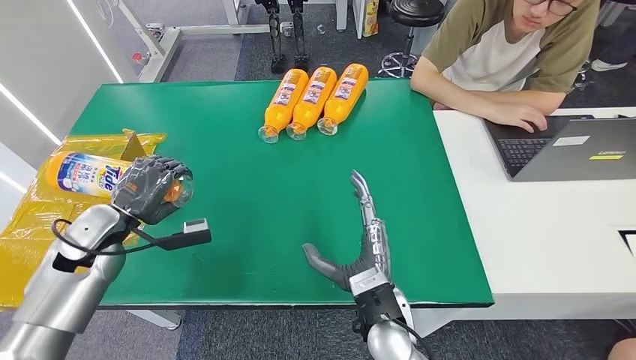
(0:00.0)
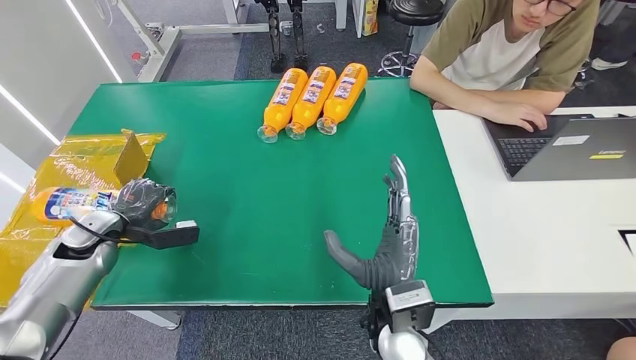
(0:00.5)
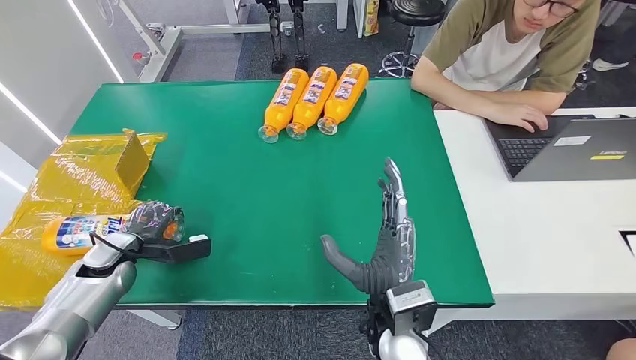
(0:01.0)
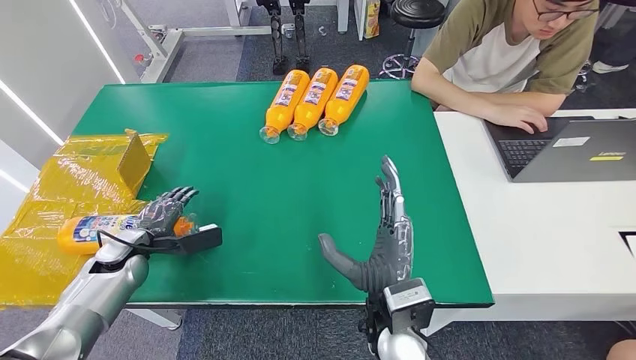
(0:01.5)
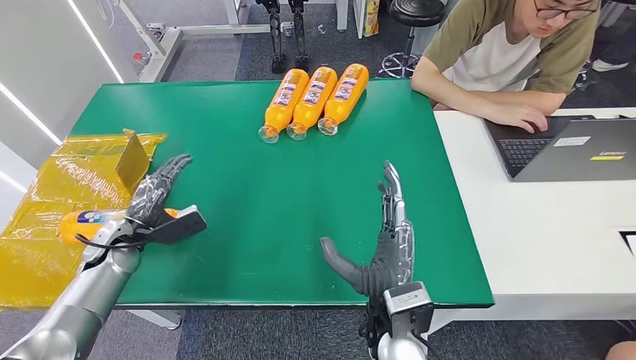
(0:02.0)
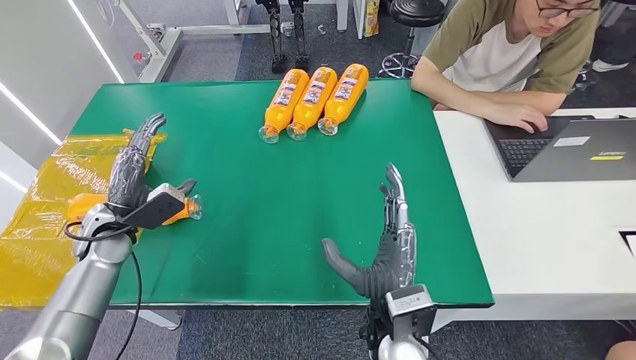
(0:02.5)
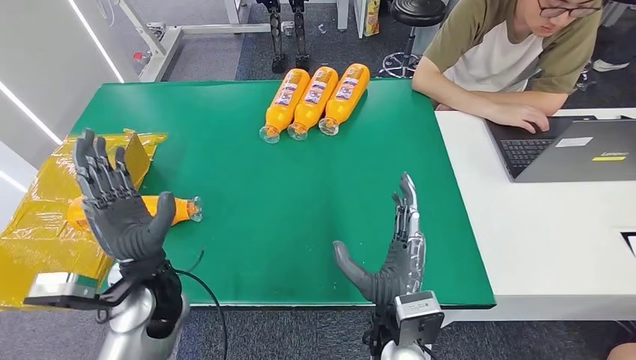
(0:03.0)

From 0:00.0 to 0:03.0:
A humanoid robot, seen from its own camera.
Step, from 0:00.0 to 0:03.0: Turn the bottle to the front side.
From 0:00.0 to 0:01.5: The left hand shifts approximately 10 cm downward.
From 0:01.5 to 0:03.0: The left hand travels to the right and upward by roughly 20 cm.

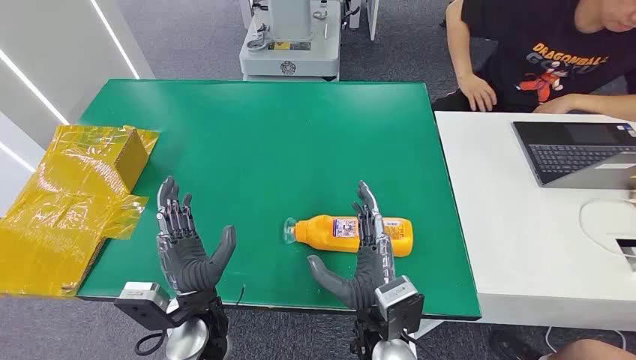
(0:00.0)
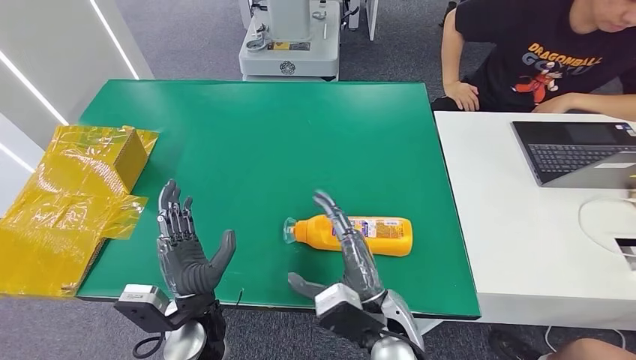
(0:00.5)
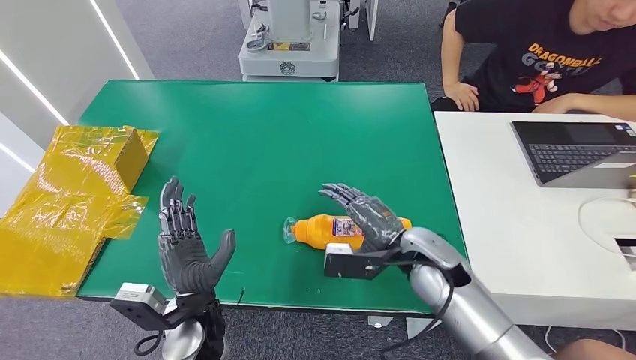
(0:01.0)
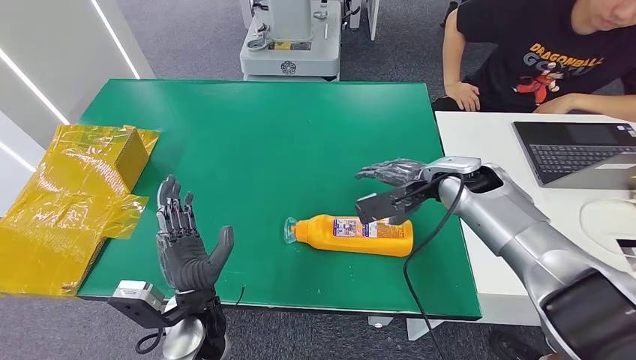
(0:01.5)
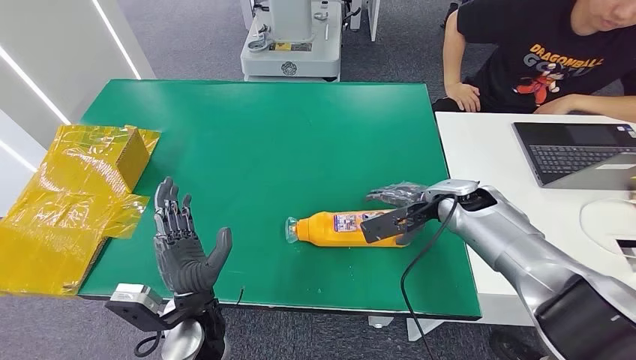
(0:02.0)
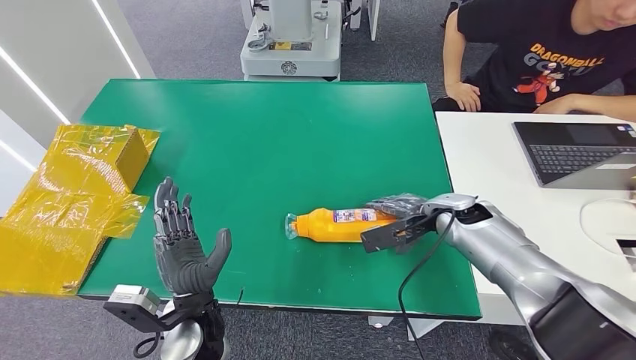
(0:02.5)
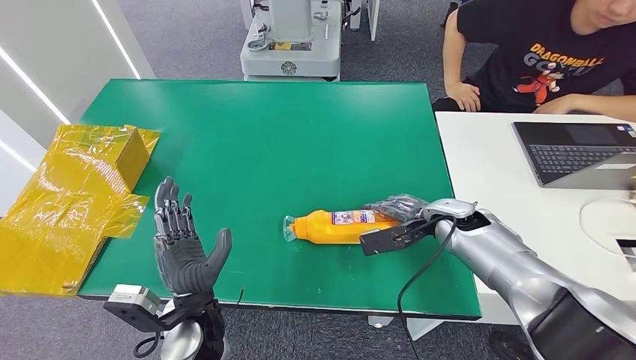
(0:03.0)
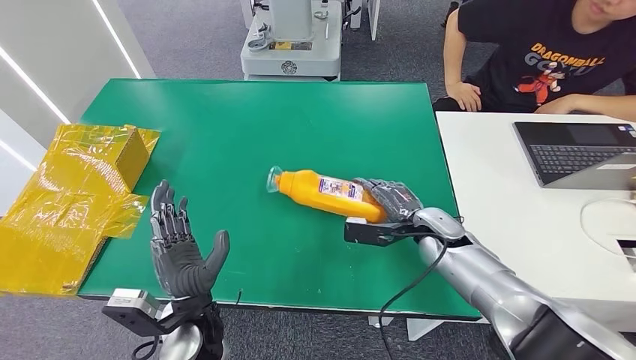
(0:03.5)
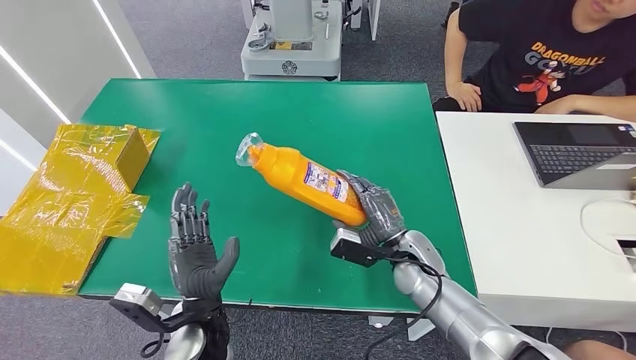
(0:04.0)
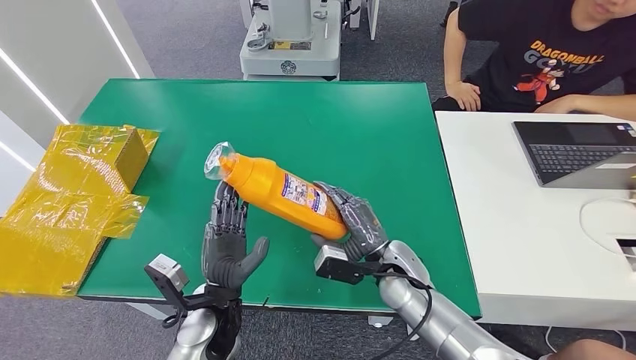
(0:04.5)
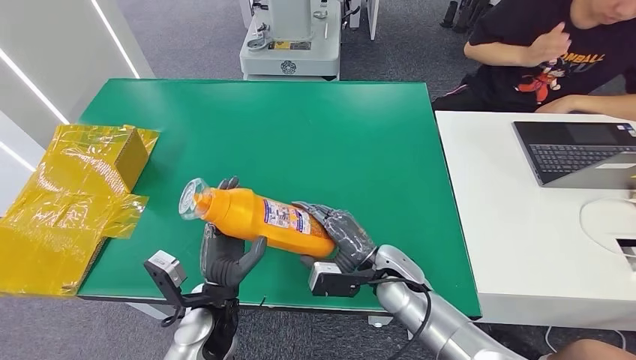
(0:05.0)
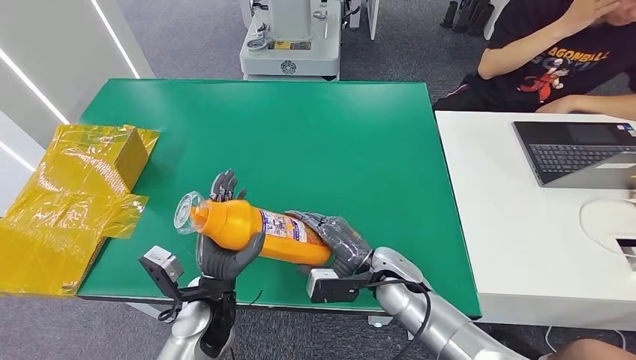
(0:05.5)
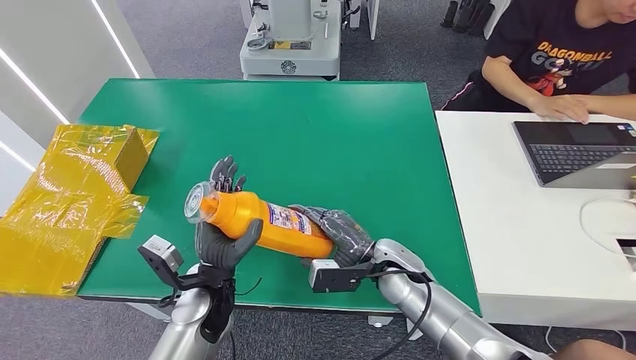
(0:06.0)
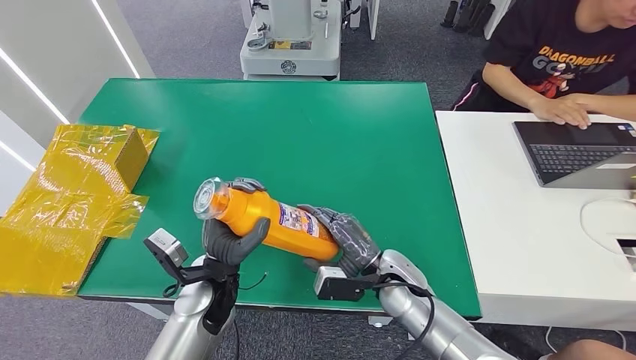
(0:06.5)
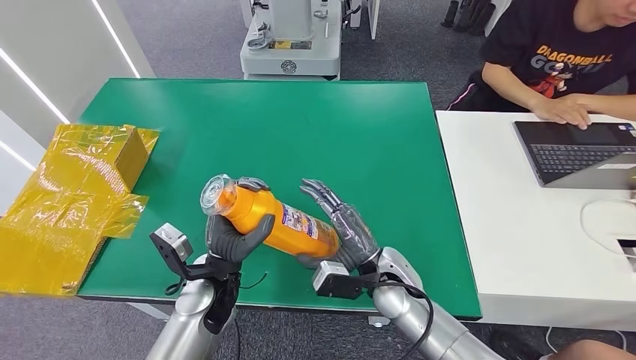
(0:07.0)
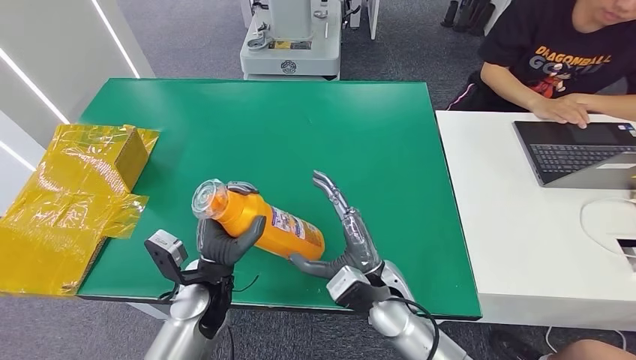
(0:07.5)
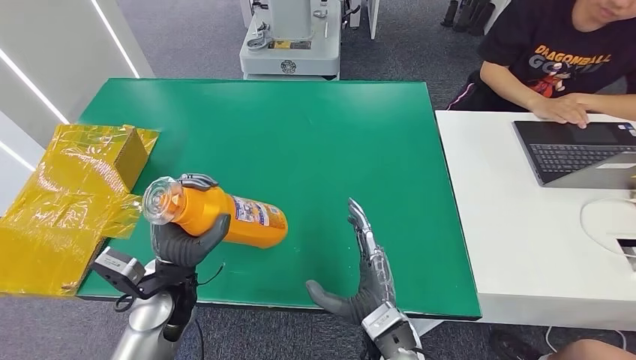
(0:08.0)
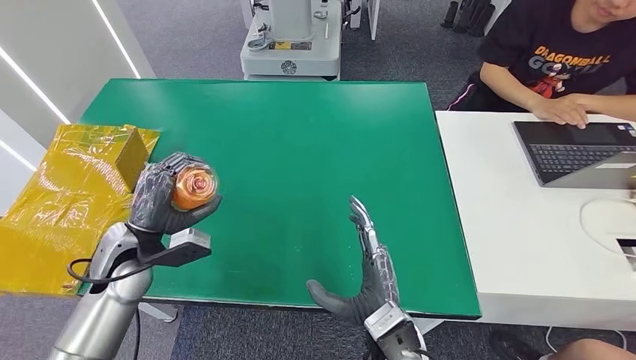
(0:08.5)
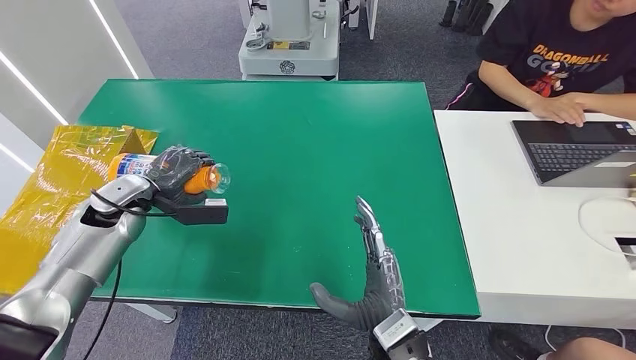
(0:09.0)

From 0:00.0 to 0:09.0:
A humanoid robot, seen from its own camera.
Step, from 0:00.0 to 0:03.5: Pick up the bottle from the table.

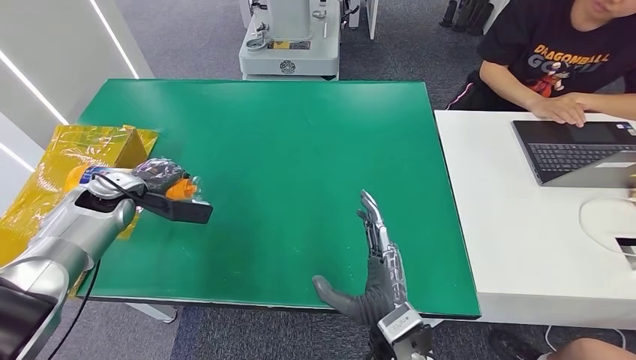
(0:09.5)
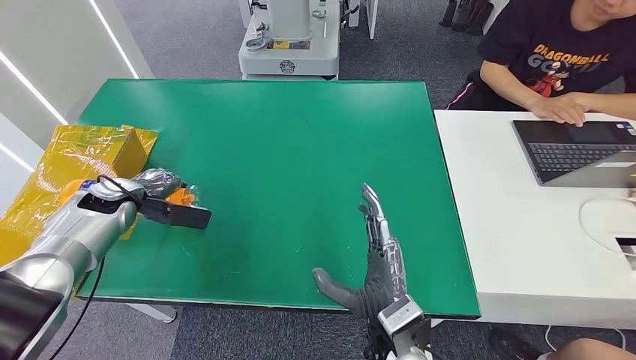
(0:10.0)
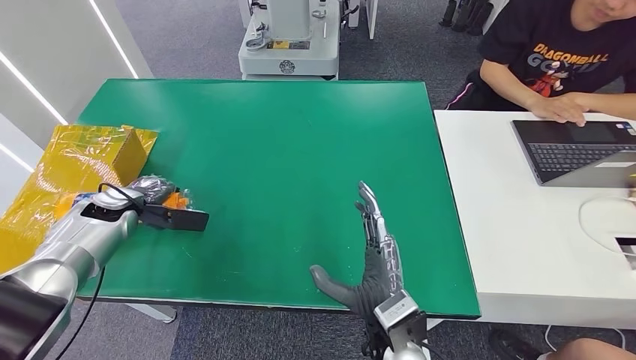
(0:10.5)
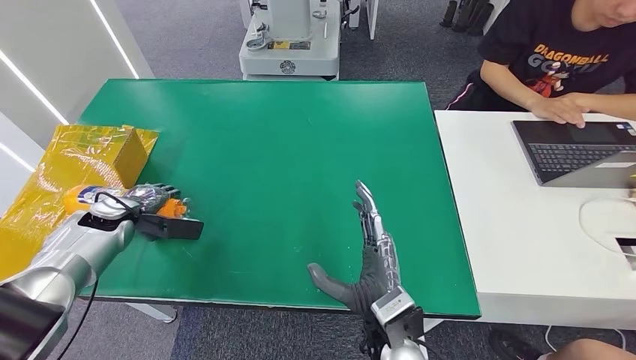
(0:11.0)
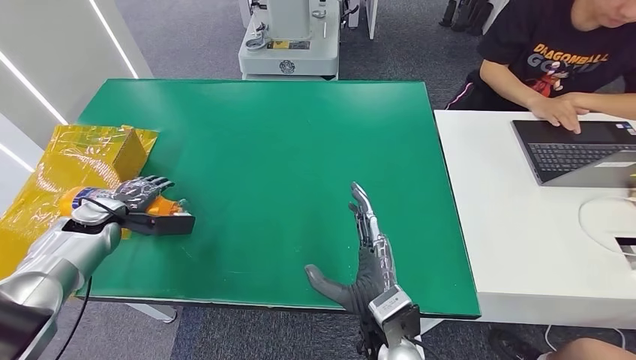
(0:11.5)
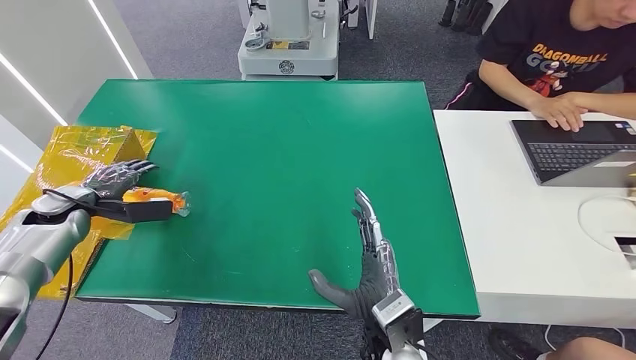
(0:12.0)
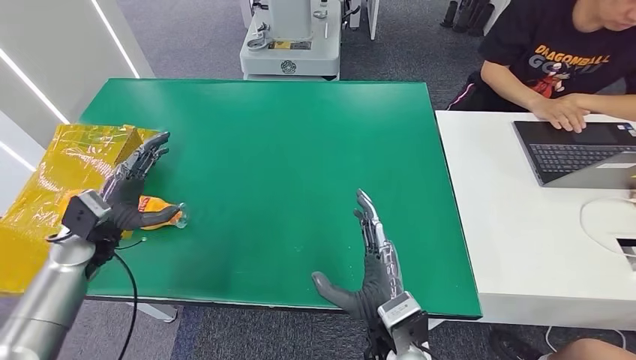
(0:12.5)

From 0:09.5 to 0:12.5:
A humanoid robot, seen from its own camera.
Step, from 0:09.5 to 0:12.5: Turn the bottle to the front side.
From 0:09.5 to 0:11.0: The left hand changes place by approximately 5 cm.
From 0:11.0 to 0:12.5: The left hand is displaced backward by roughly 5 cm, and travels to the left and back again, about 5 cm each way.

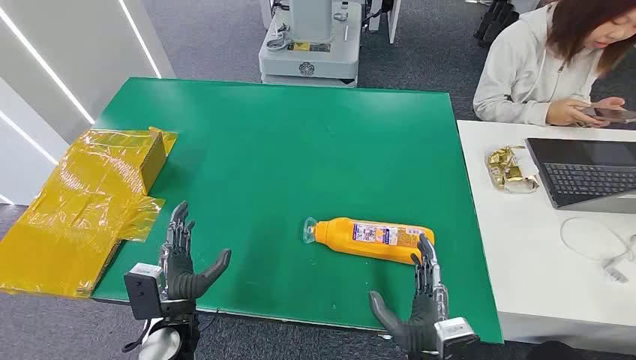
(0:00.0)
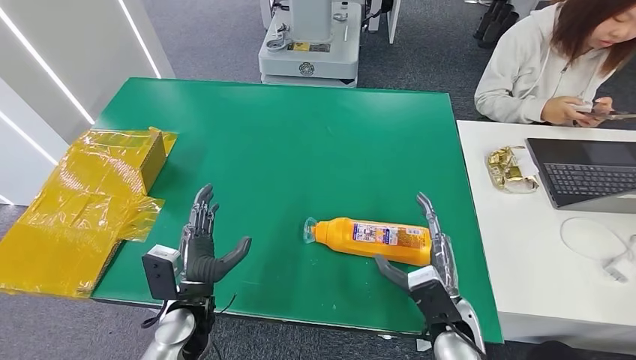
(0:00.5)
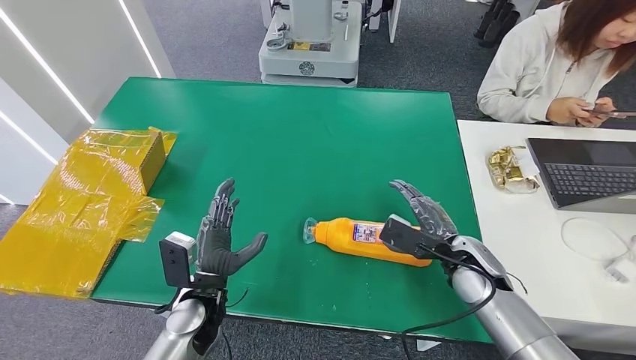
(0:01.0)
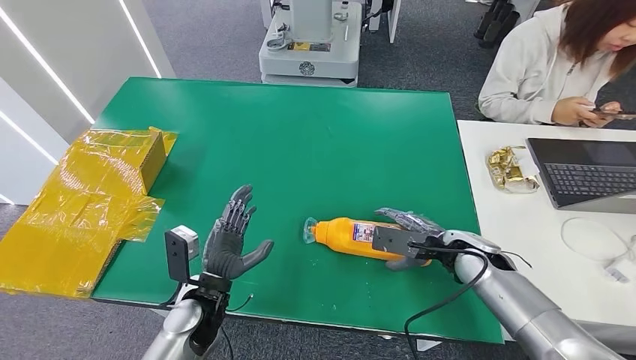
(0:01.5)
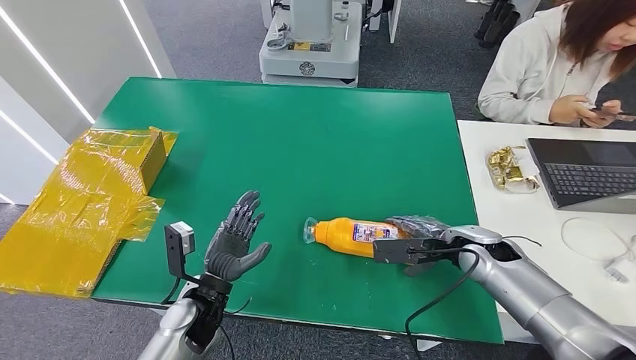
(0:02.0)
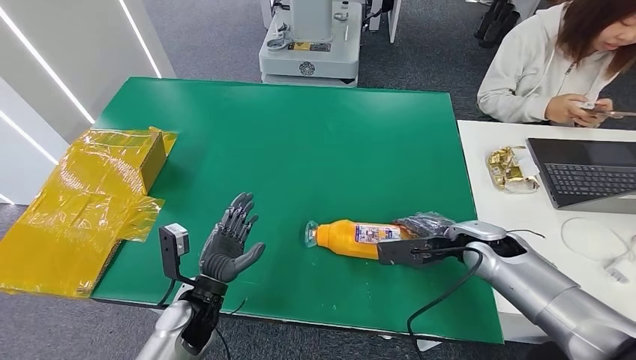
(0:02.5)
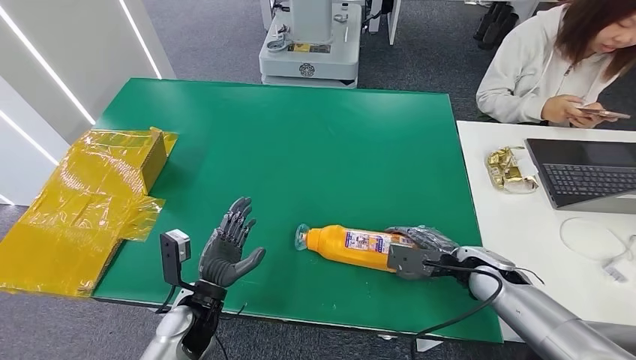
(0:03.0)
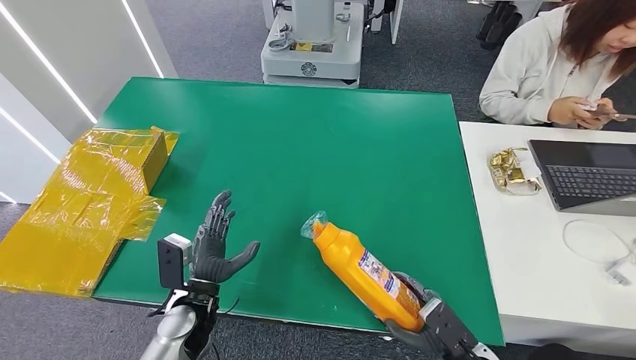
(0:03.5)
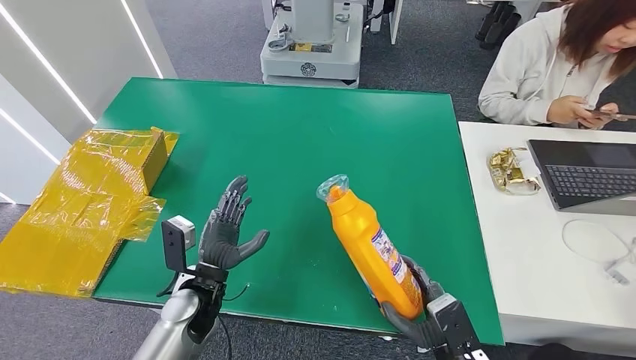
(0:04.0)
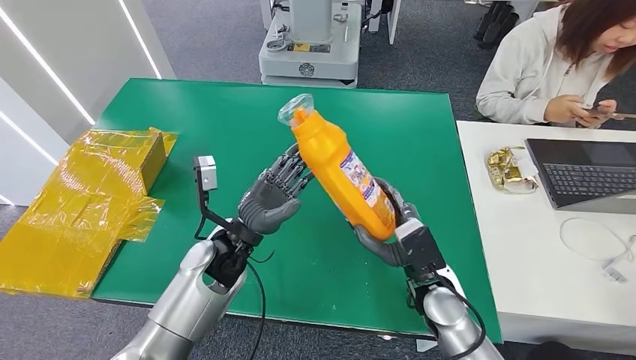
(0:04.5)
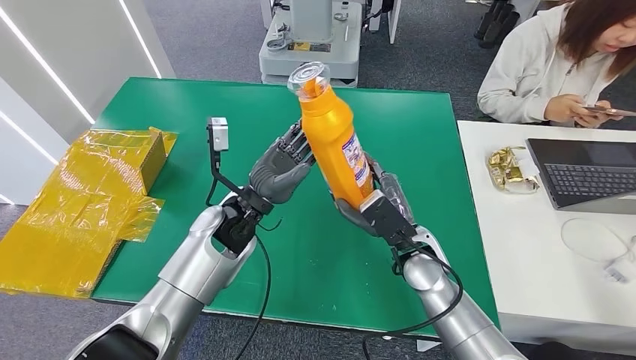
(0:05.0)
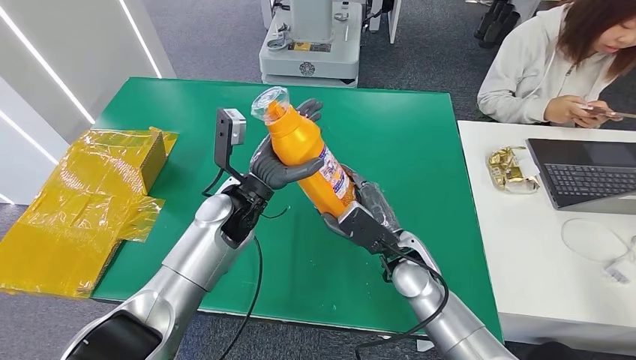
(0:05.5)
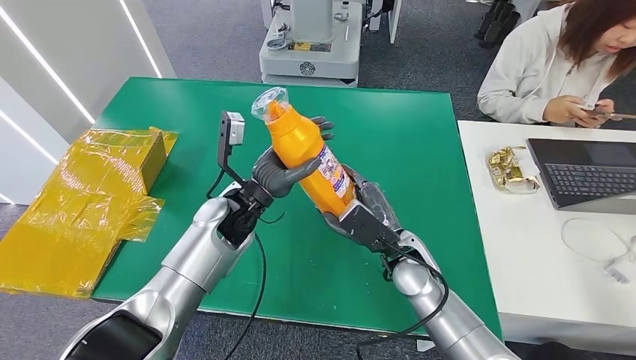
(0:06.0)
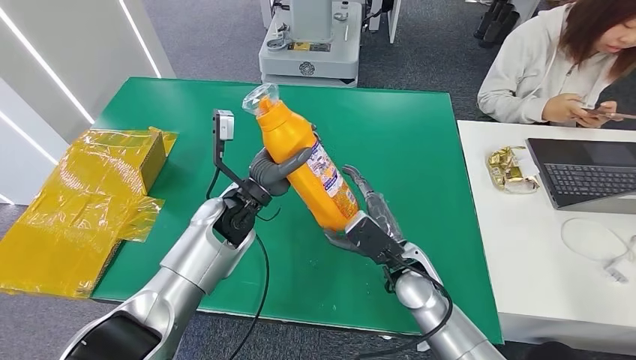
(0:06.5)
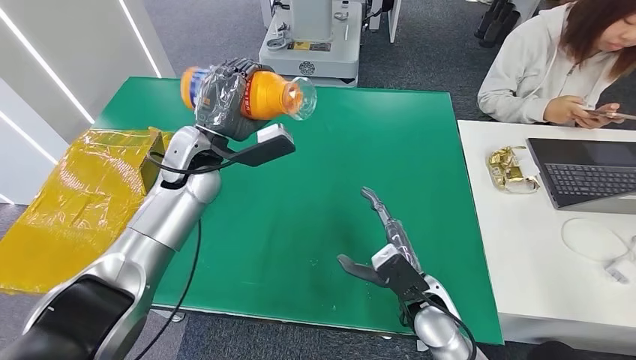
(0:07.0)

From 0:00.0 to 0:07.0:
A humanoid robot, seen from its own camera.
Step, from 0:00.0 to 0:04.5: Pick up the bottle from the table.
From 0:02.0 to 0:03.5: The right hand travels backward and downward by some 20 cm.
